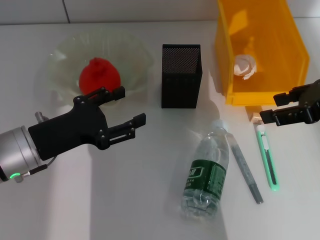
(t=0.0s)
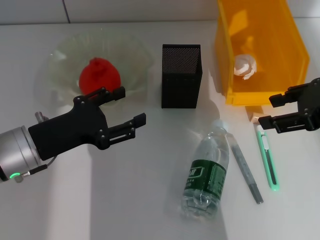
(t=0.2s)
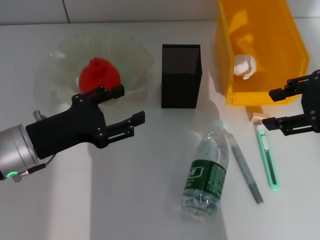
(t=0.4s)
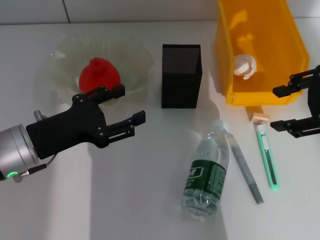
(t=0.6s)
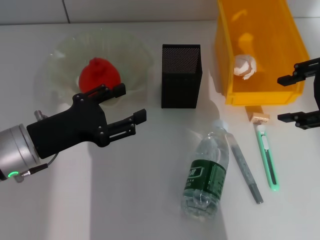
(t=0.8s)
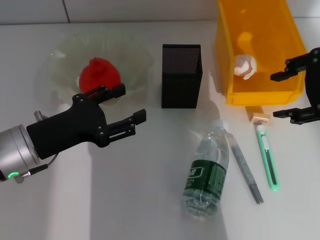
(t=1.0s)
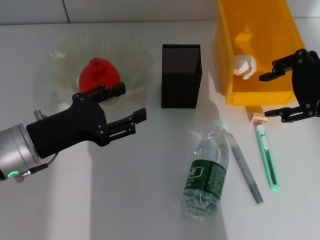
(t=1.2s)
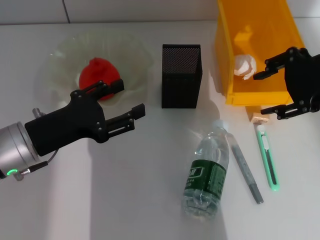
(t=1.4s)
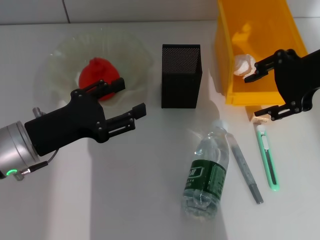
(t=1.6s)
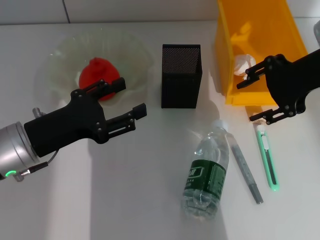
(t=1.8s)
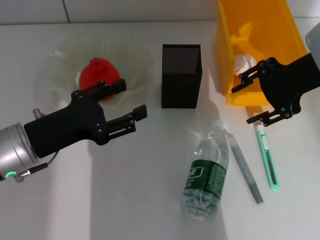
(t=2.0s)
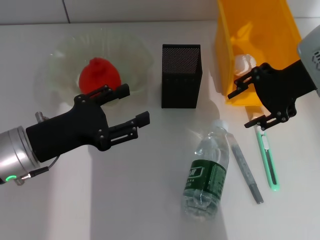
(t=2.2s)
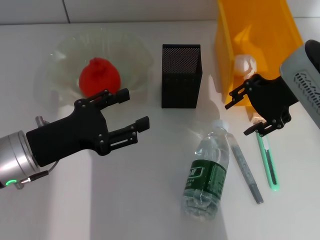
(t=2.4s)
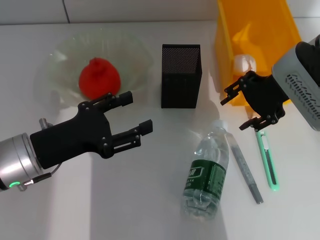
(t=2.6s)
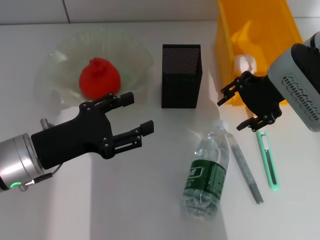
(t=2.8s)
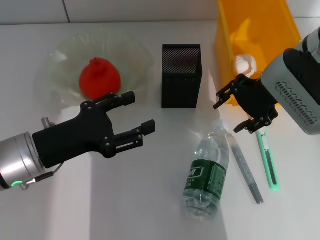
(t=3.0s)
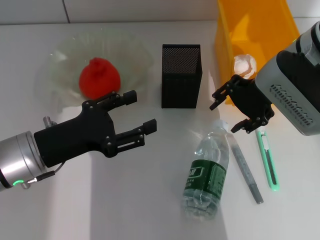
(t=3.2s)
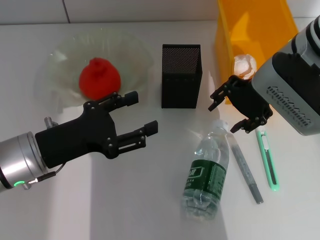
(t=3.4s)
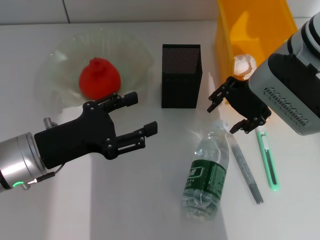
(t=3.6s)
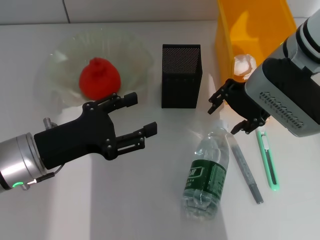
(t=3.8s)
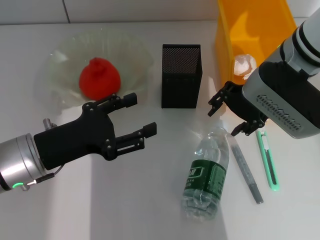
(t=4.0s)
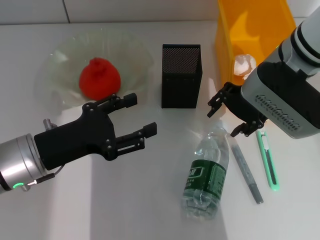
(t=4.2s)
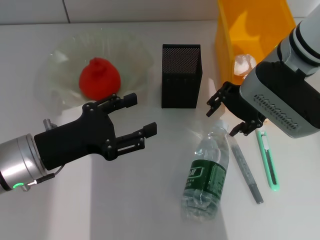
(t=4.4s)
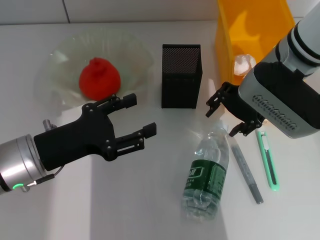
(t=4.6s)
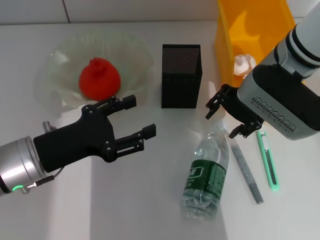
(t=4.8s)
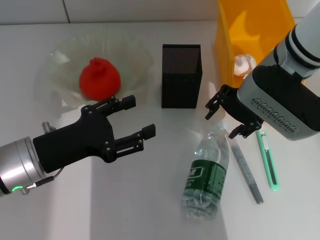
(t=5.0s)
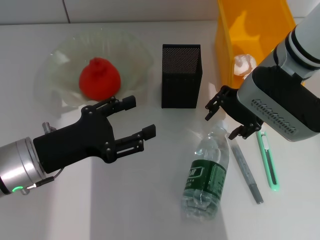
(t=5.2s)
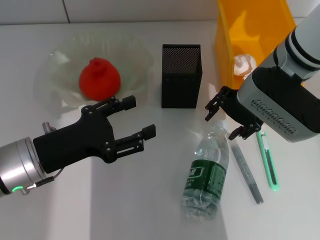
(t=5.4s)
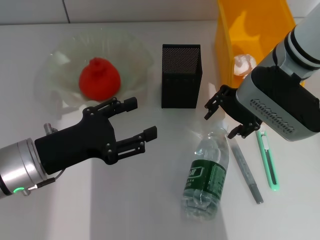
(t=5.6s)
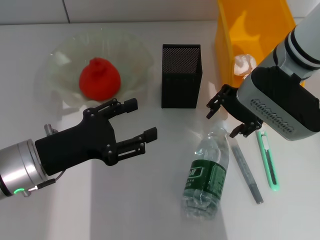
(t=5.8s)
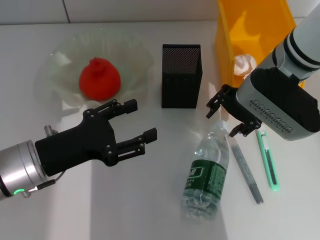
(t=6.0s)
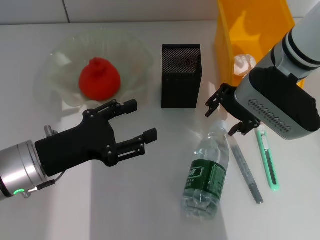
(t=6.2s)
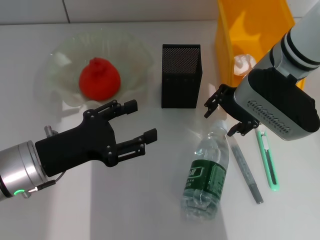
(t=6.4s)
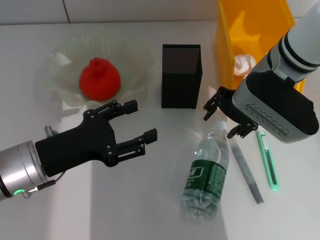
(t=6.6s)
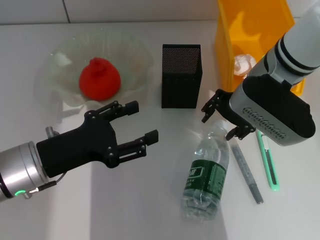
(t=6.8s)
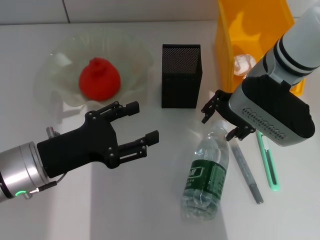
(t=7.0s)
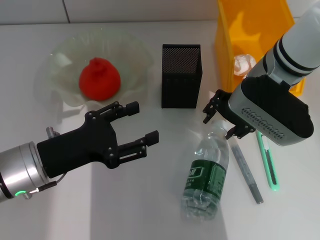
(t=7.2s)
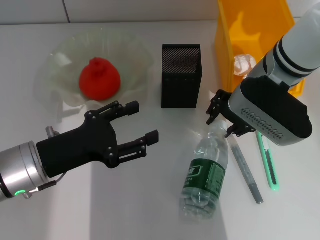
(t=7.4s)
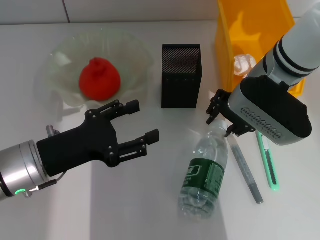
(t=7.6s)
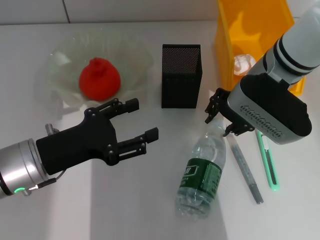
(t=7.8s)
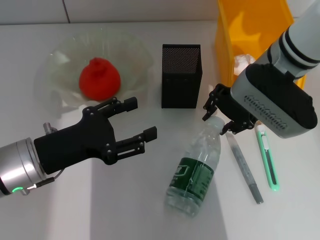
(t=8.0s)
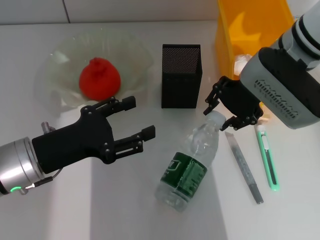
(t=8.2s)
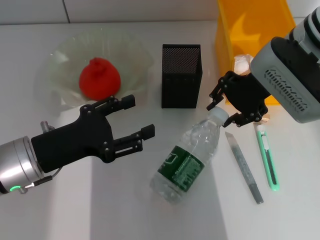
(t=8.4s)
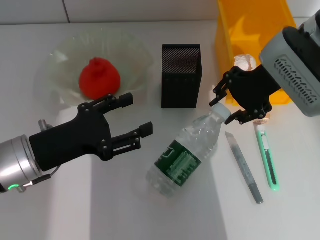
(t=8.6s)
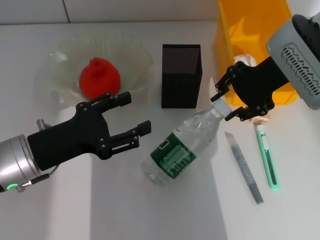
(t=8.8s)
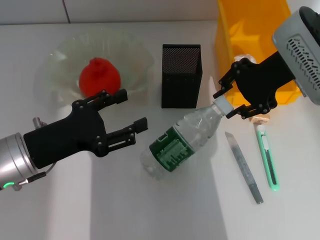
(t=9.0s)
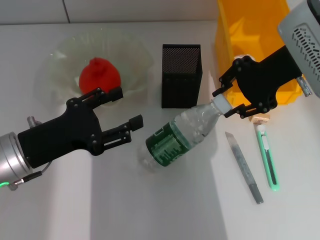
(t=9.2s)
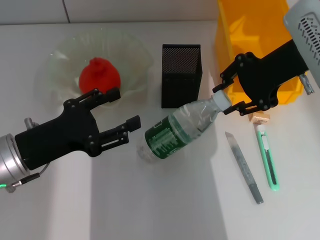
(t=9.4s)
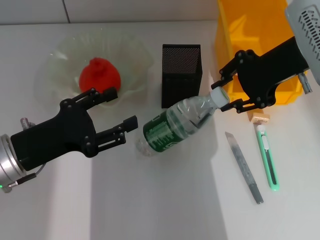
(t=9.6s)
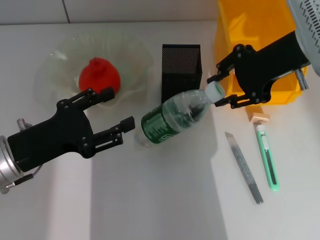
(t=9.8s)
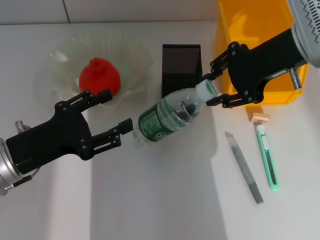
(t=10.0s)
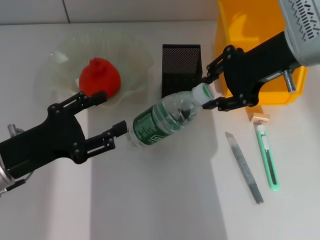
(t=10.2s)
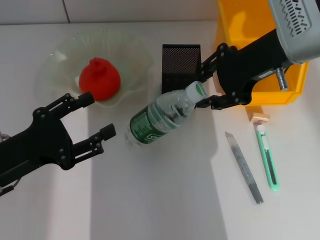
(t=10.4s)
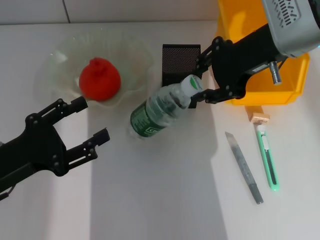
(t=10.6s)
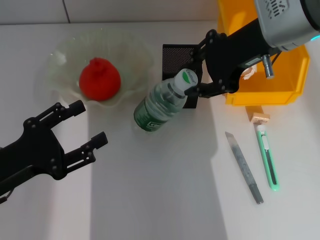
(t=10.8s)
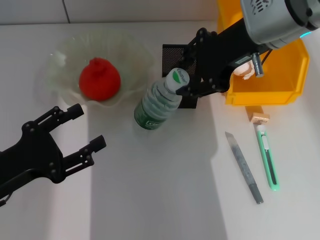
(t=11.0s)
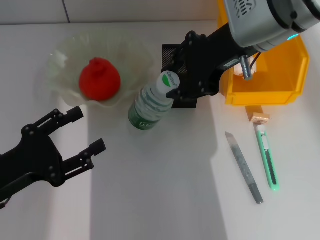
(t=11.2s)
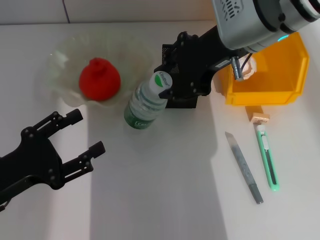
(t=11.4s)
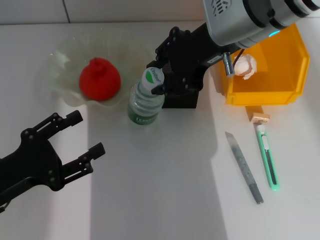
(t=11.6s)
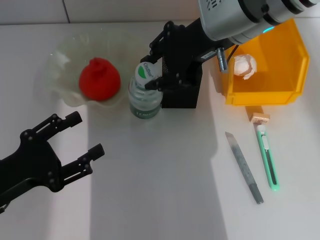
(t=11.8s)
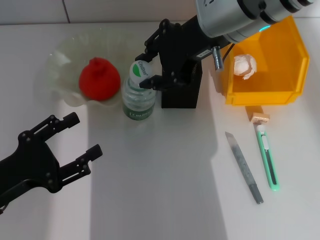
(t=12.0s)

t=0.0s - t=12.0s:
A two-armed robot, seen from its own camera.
Step, t=0.0s - t=7.8s: Grab the water bottle with the right hand.
t=0.0s - t=1.6s: The right gripper travels to the left by roughly 5 cm.
t=1.6s - t=3.0s: The right gripper is displaced to the left and downward by approximately 5 cm.
t=3.0s - t=4.4s: The grippers move only a little.
t=4.4s - t=6.0s: Neither gripper changes place.
t=6.0s - t=7.6s: The grippers move only a little.
t=7.6s - t=9.0s: The right gripper travels upward by about 5 cm.
t=10.4s - t=12.0s: The right gripper travels to the left by approximately 10 cm.

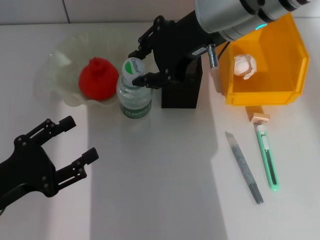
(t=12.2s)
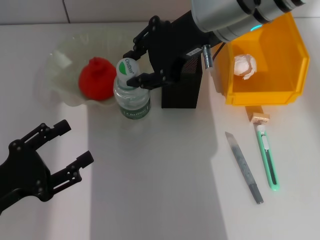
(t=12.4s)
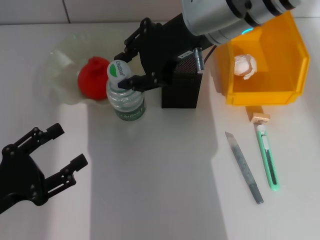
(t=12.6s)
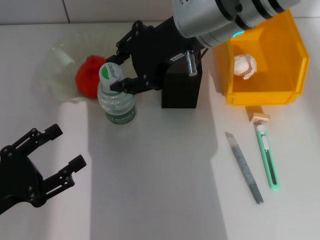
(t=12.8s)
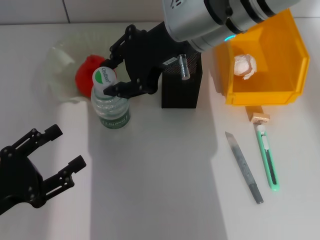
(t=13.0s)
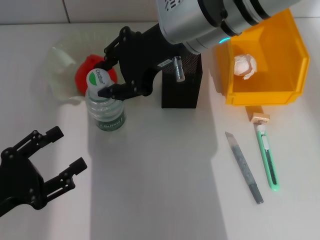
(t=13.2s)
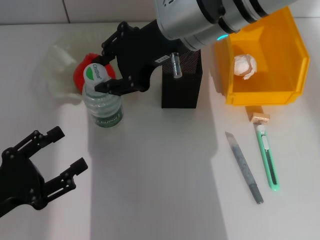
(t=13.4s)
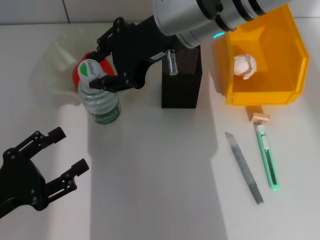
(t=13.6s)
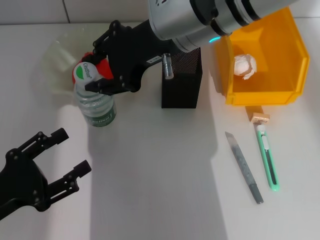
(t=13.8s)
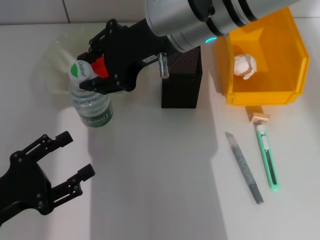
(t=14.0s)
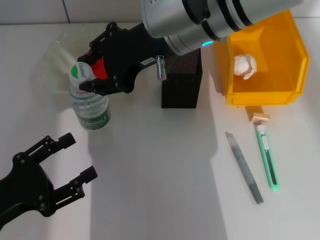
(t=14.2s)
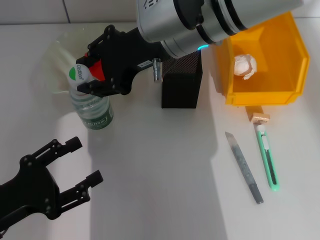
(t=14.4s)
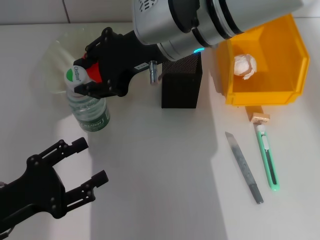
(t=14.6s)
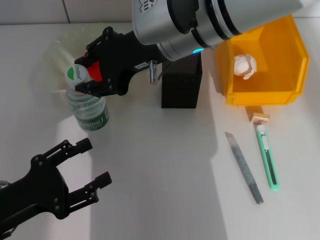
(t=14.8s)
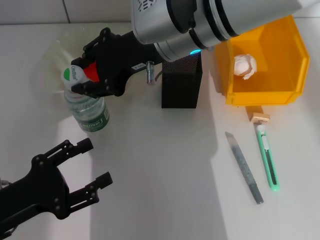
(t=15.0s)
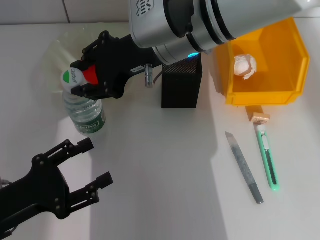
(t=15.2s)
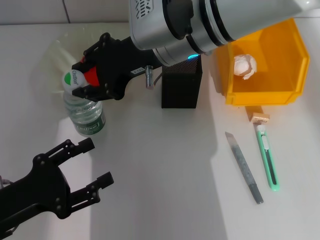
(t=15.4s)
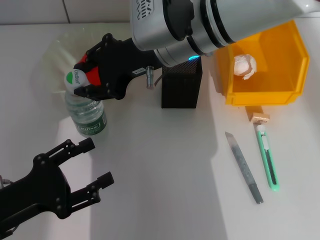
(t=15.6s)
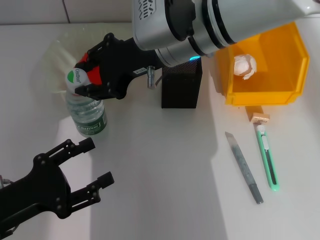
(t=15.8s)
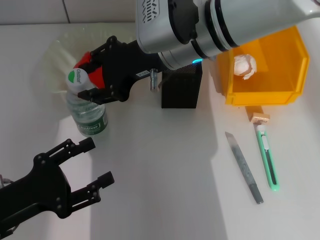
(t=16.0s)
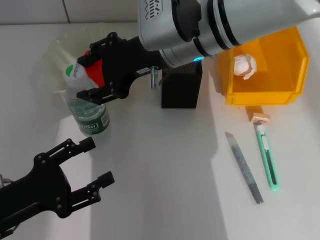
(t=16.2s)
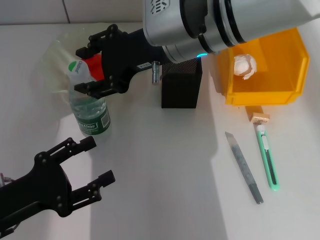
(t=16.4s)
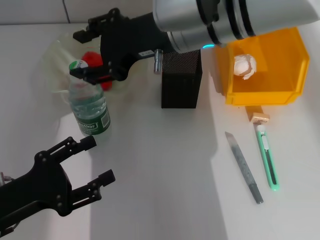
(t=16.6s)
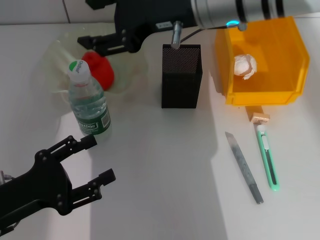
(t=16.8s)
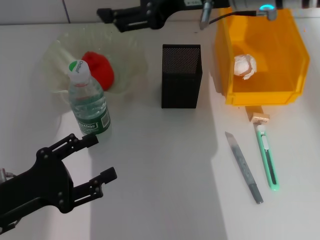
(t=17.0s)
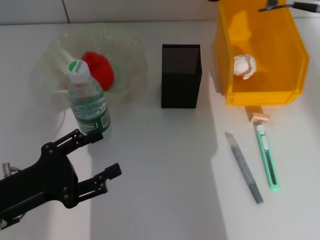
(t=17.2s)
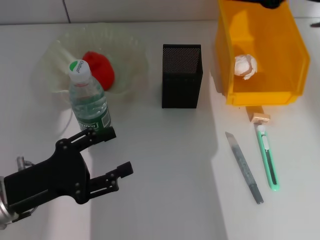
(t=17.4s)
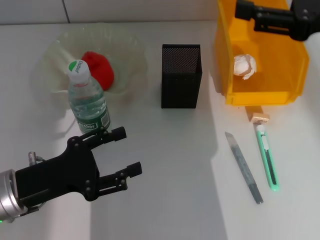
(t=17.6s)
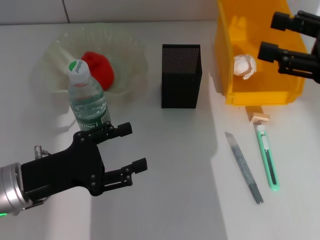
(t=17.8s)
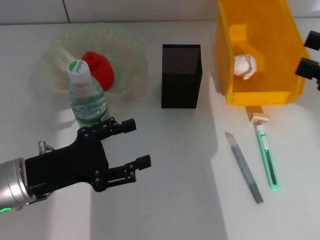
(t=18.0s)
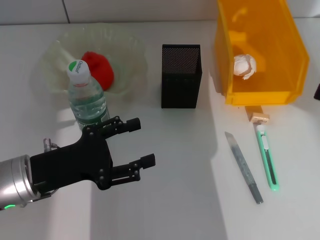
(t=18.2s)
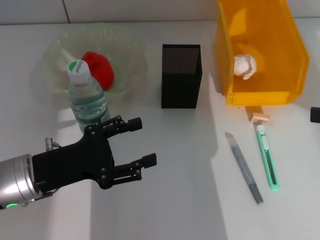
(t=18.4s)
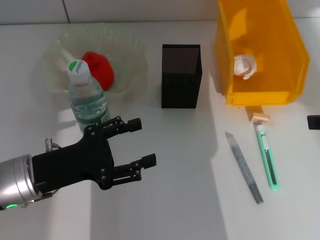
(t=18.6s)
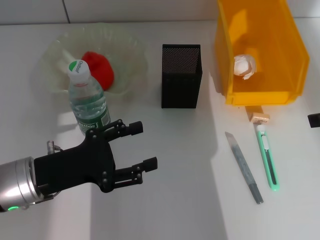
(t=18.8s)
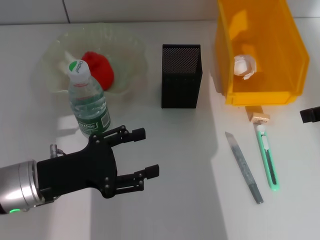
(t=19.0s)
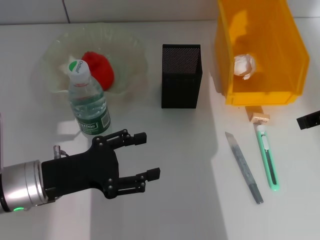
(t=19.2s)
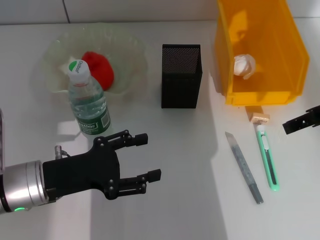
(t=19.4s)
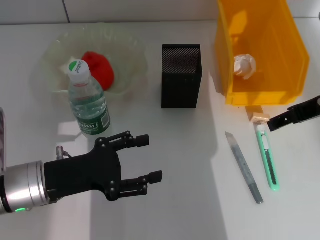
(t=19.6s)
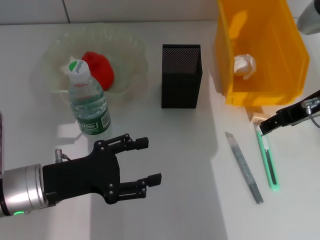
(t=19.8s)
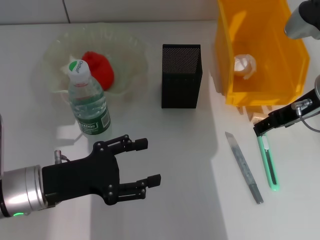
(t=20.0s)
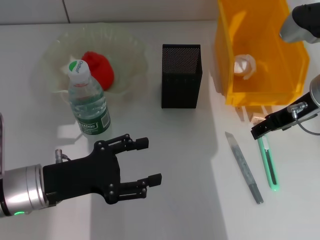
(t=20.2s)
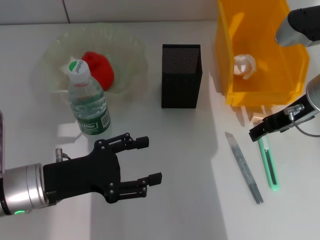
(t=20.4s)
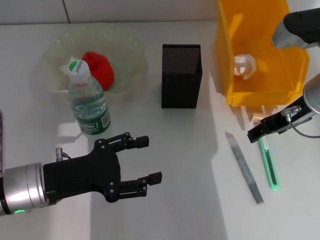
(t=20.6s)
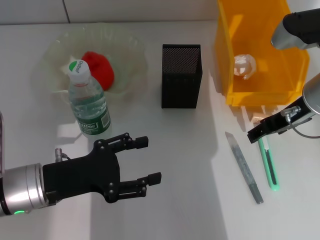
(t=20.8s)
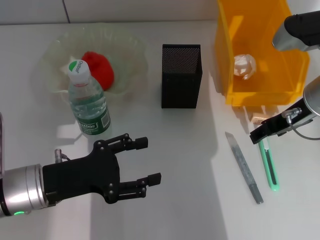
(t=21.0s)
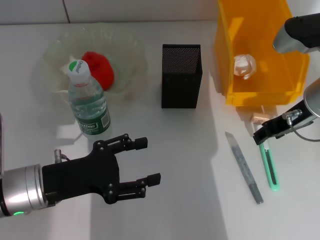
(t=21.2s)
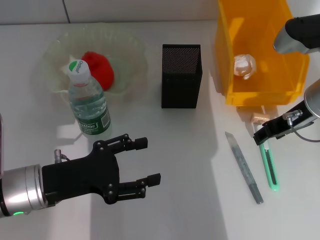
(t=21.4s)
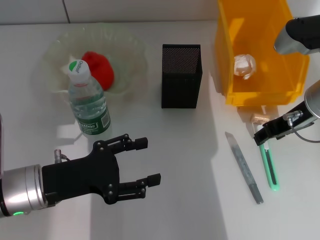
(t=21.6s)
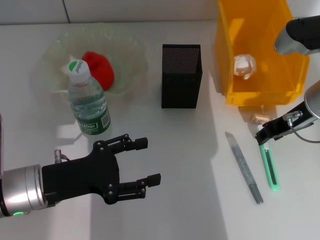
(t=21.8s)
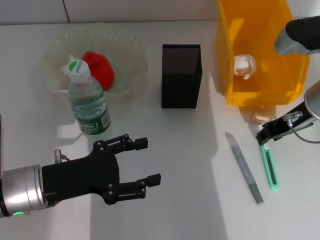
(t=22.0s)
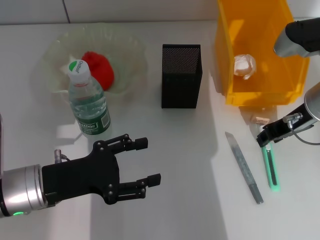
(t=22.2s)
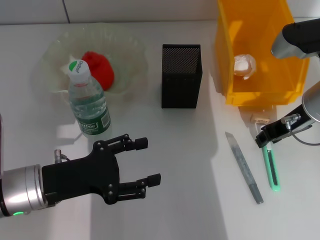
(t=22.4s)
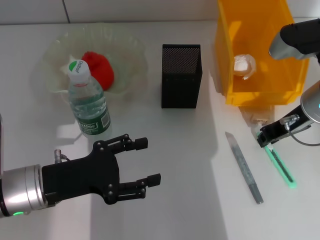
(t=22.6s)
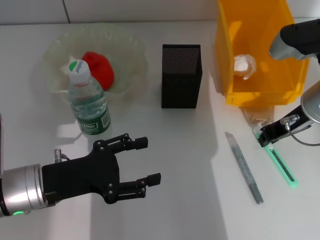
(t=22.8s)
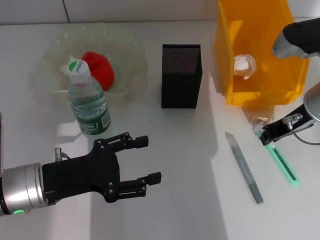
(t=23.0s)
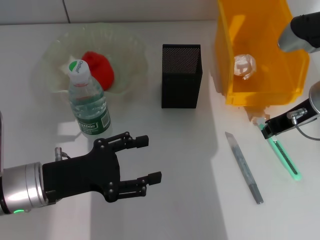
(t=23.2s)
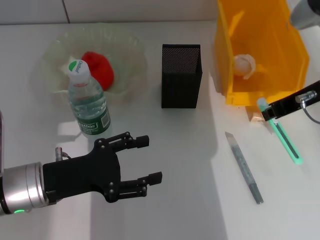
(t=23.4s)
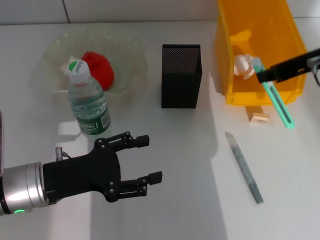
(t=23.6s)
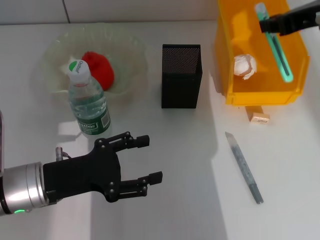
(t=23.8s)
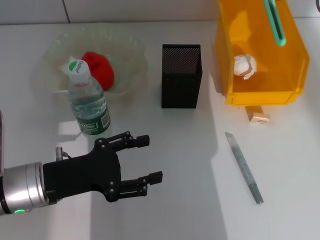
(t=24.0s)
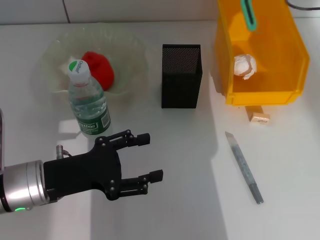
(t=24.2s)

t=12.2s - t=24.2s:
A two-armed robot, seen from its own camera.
Step, t=12.2s - t=16.4s: Place the water bottle on the table with the right hand.
Step, t=16.6s - t=22.6s: Grab the blue utility knife with the right hand.
t=12.2s - t=13.8s: There are only small adjustments of the grippers.
t=13.8s - t=15.2s: The grippers stay close to where they were, moving slightly.
t=15.2s - t=16.6s: The right gripper opens up.
t=16.6s - t=18.2s: The right gripper shifts approximately 35 cm to the right and backward. The left gripper shifts about 5 cm forward.
t=18.2s - t=19.8s: The right gripper goes approximately 15 cm to the left and forward.
t=19.8s - t=21.2s: The grippers make only small movements.
t=21.2s - t=22.6s: The right gripper closes up.
t=22.6s - t=24.2s: The right gripper goes about 15 cm upward.
